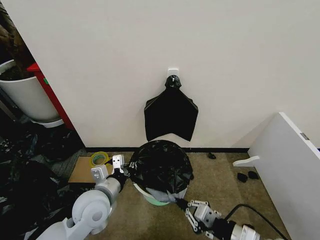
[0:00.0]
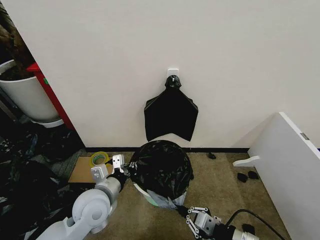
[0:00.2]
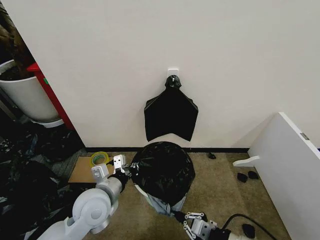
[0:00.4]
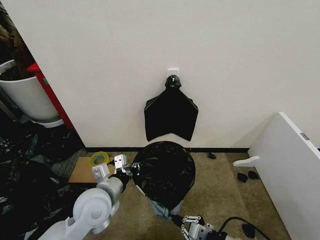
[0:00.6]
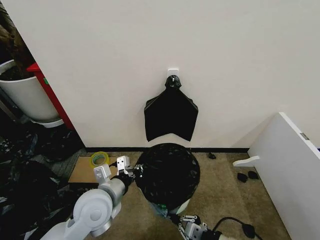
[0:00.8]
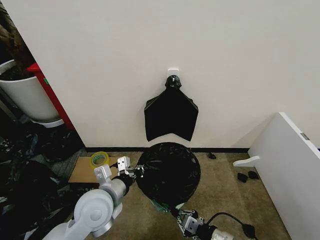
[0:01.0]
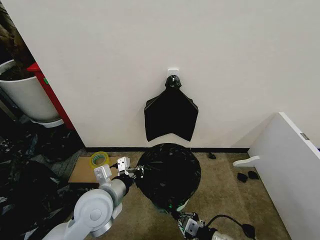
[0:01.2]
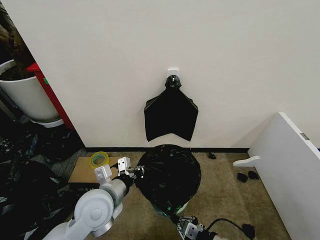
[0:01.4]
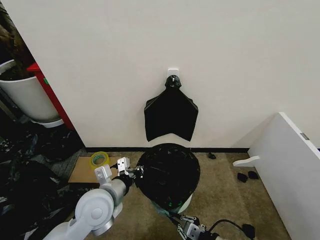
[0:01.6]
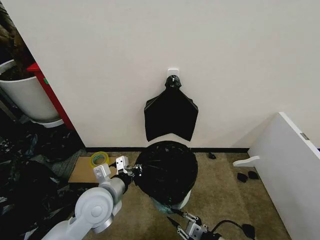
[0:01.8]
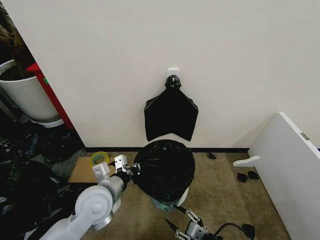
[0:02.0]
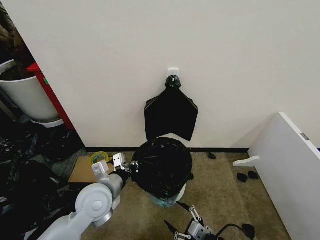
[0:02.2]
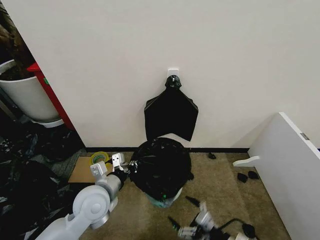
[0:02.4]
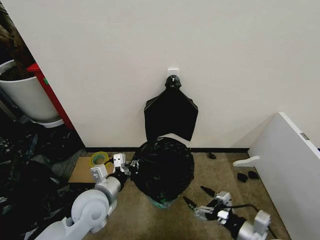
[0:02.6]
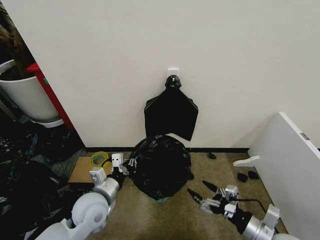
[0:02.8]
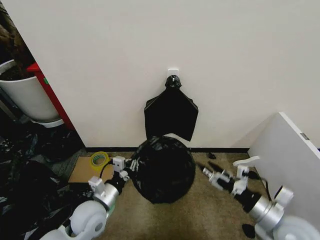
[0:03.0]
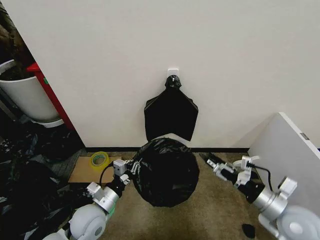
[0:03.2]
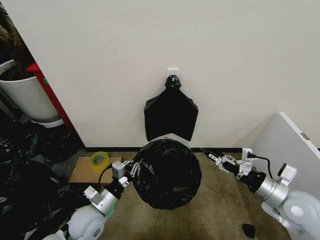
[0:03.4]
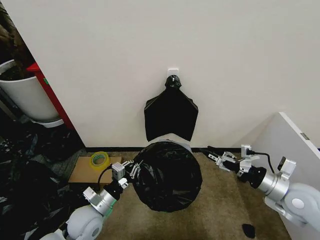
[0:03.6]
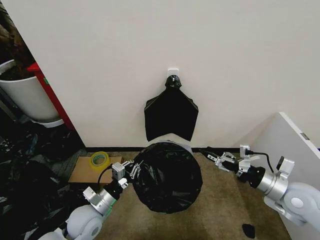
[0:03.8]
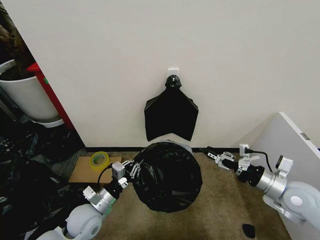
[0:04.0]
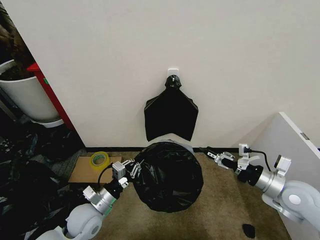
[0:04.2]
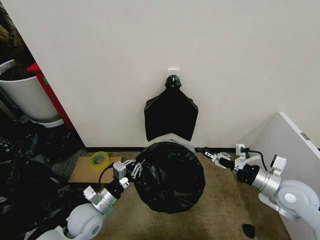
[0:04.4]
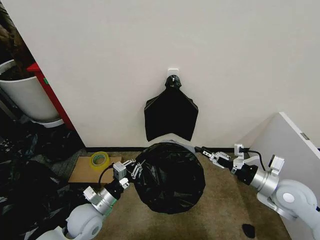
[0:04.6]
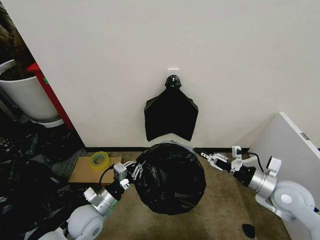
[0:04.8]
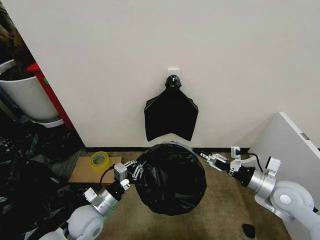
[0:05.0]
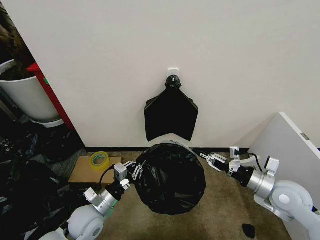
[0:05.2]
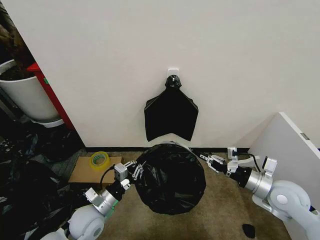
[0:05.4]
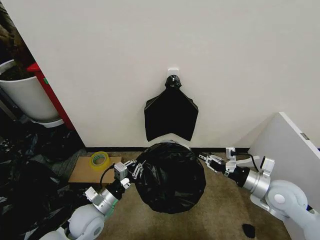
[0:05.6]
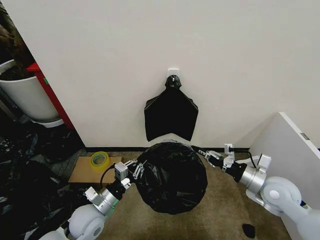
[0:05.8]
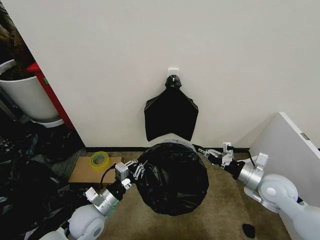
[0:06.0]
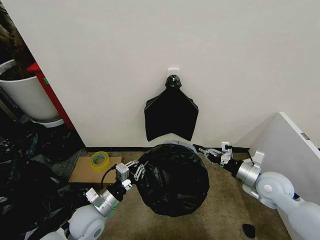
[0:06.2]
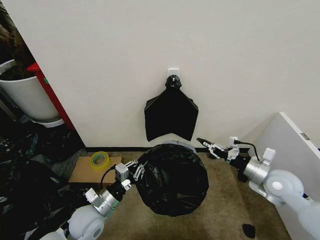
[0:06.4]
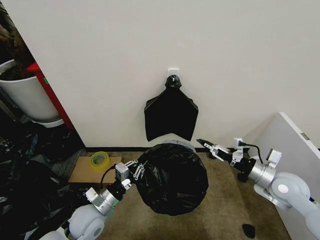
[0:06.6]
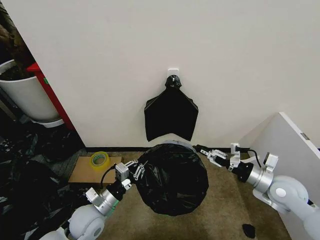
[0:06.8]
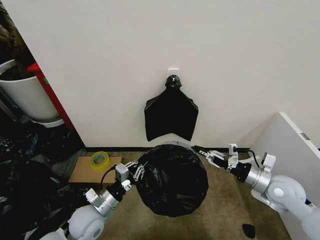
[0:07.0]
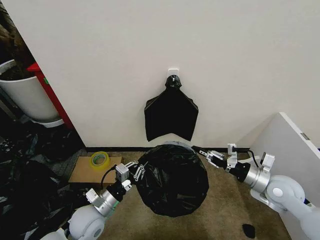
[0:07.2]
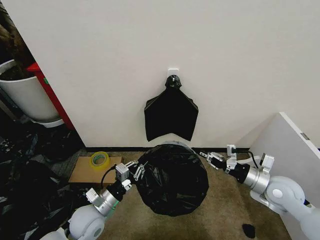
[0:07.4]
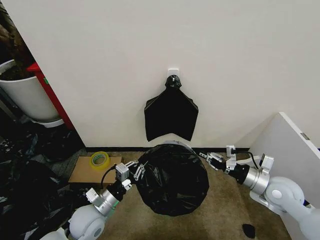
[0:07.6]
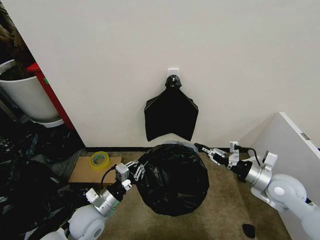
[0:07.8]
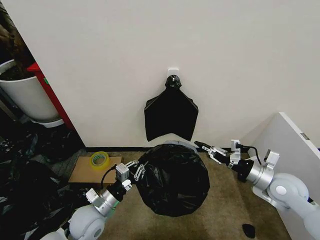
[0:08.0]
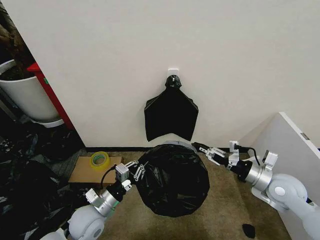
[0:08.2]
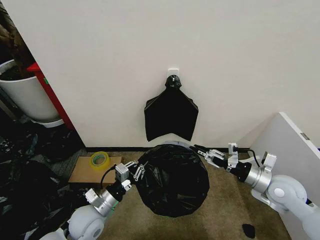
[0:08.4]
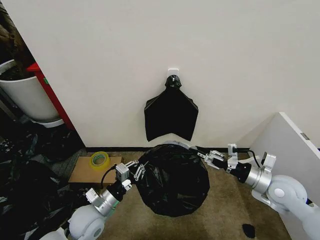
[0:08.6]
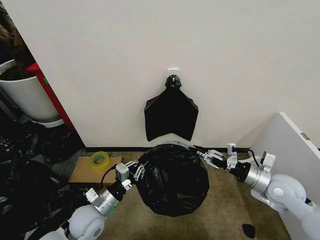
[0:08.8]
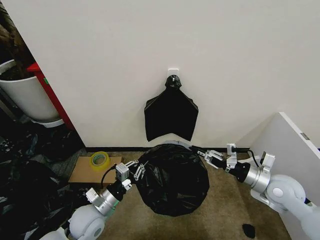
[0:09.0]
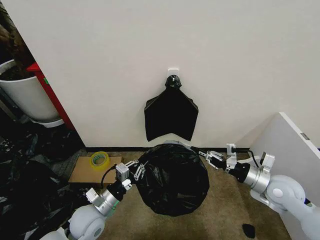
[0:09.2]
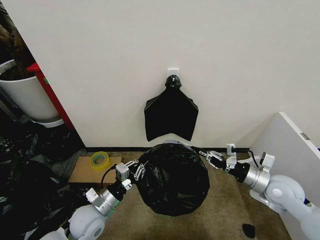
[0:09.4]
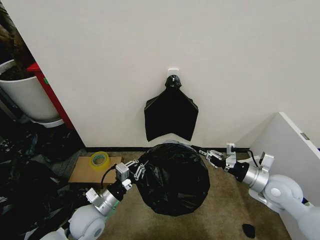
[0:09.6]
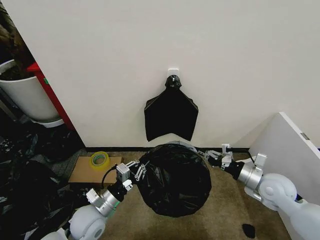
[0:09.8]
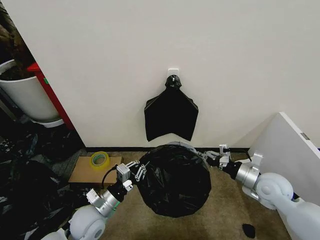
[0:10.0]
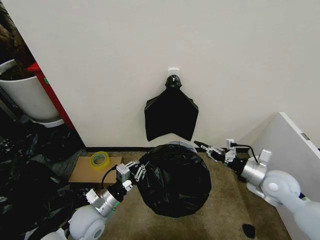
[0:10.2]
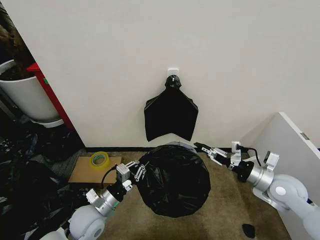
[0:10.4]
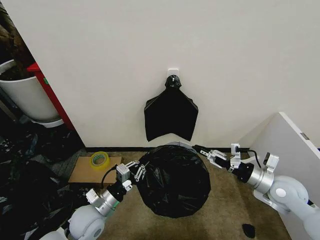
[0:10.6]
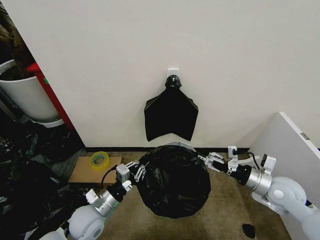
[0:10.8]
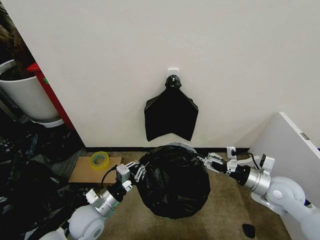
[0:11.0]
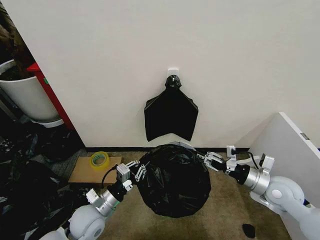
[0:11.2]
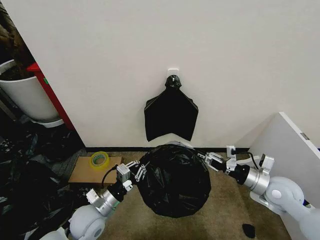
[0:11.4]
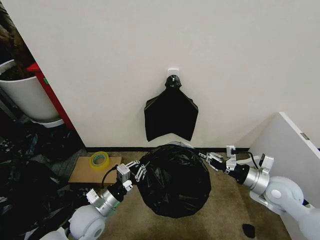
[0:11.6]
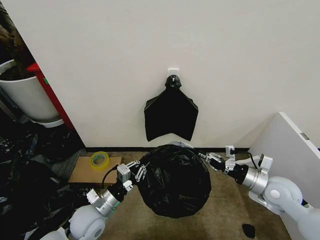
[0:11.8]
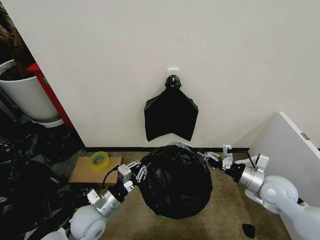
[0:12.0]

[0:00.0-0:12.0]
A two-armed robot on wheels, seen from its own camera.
Task of the whole recording: Place the garbage bag over the trash bin.
0:00.0 to 0:01.6: The right gripper is displaced downward by about 10 cm.
0:01.6 to 0:03.0: The right gripper travels upward and to the right by some 15 cm, and opens; the left gripper goes about 10 cm downward.
0:03.0 to 0:04.4: The right gripper is displaced forward by roughly 10 cm.
0:04.4 to 0:06.0: The right gripper closes up.
0:06.0 to 0:07.6: The right gripper opens, then closes once more.
0:07.6 to 0:09.0: The right gripper opens, then closes again.
0:09.0 to 0:10.4: The grippers move only a little.
0:10.4 to 0:12.0: The right gripper opens, then closes once more.

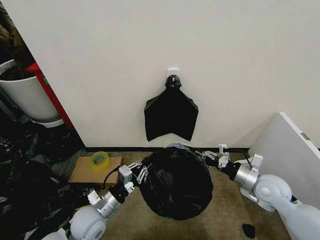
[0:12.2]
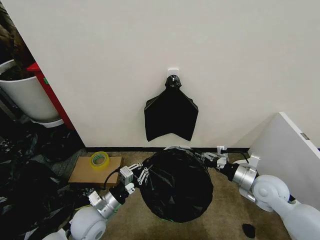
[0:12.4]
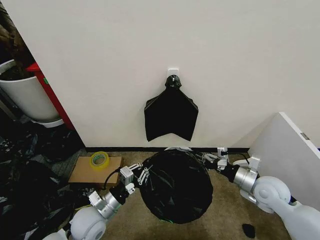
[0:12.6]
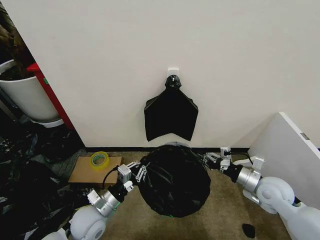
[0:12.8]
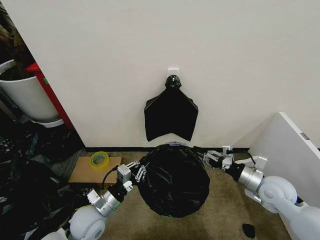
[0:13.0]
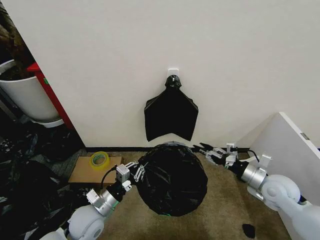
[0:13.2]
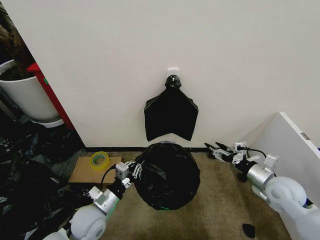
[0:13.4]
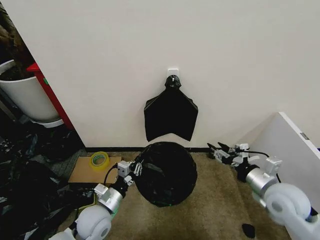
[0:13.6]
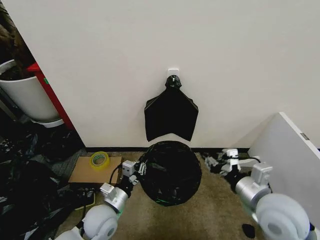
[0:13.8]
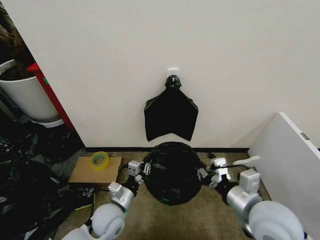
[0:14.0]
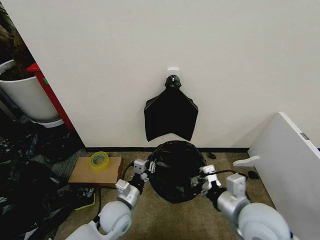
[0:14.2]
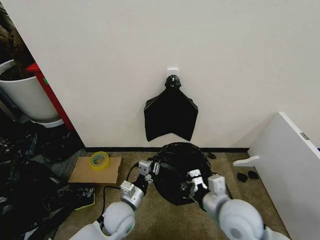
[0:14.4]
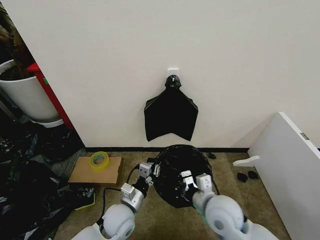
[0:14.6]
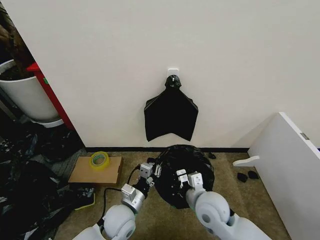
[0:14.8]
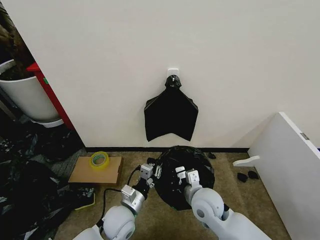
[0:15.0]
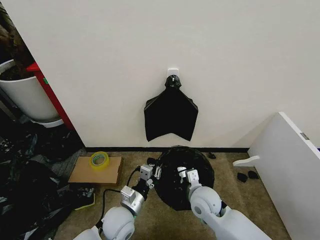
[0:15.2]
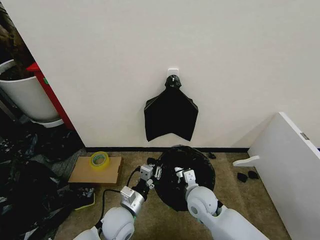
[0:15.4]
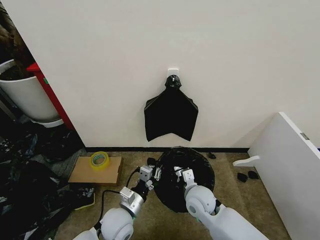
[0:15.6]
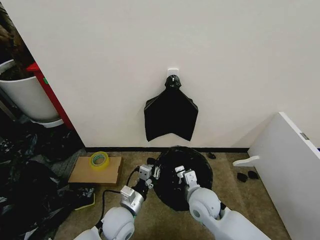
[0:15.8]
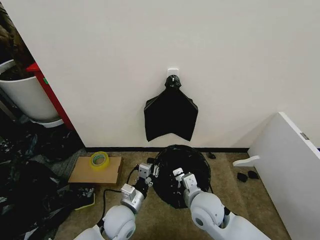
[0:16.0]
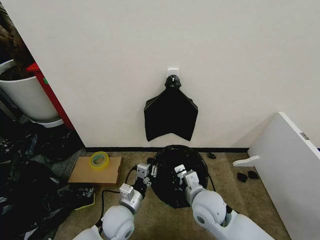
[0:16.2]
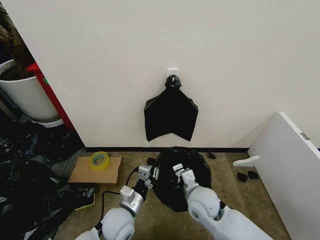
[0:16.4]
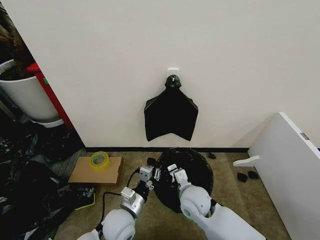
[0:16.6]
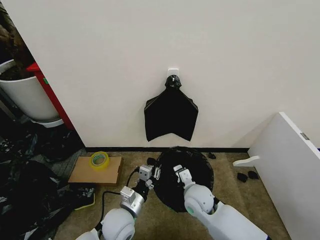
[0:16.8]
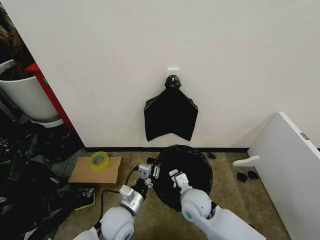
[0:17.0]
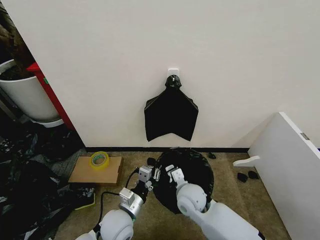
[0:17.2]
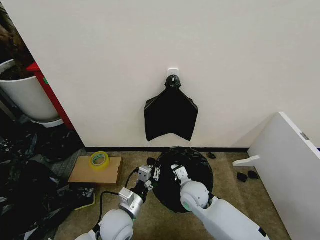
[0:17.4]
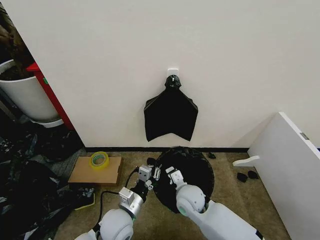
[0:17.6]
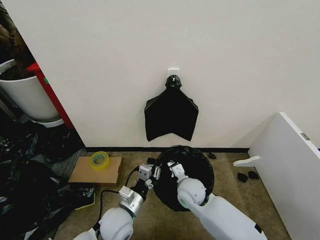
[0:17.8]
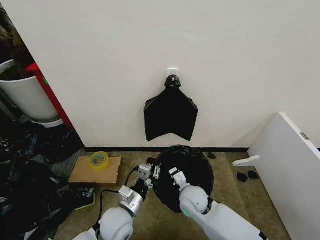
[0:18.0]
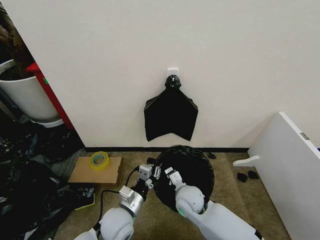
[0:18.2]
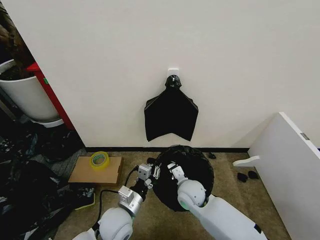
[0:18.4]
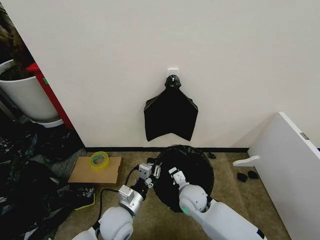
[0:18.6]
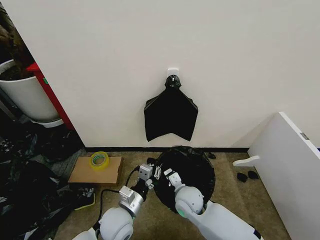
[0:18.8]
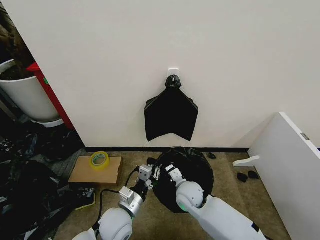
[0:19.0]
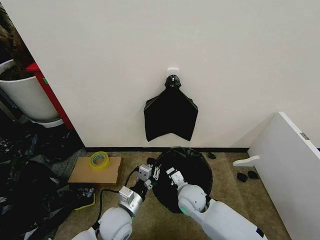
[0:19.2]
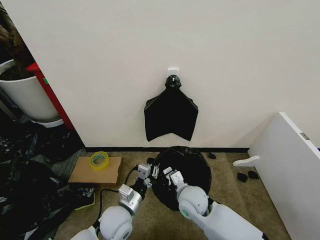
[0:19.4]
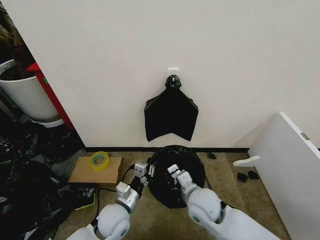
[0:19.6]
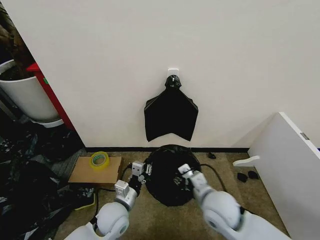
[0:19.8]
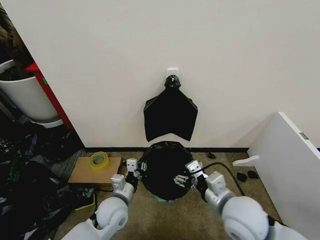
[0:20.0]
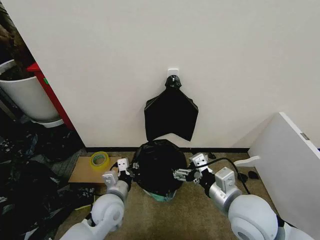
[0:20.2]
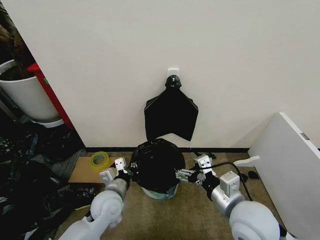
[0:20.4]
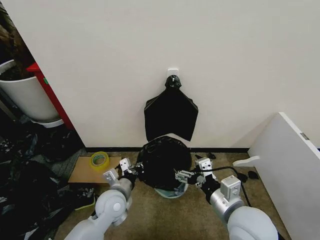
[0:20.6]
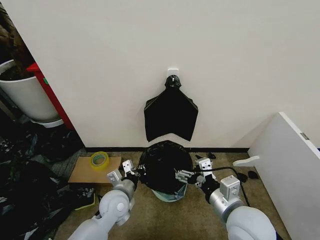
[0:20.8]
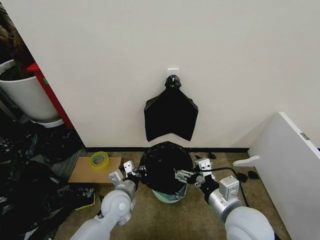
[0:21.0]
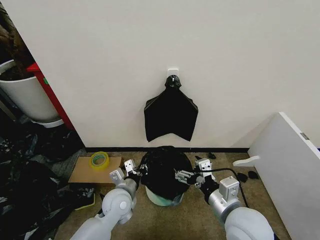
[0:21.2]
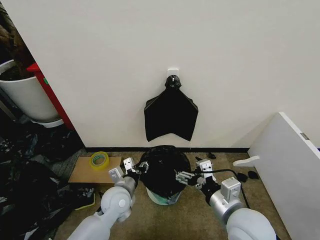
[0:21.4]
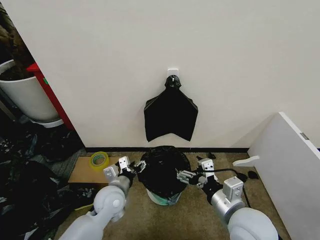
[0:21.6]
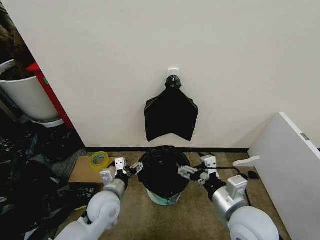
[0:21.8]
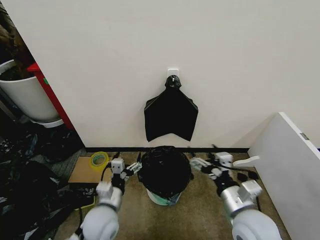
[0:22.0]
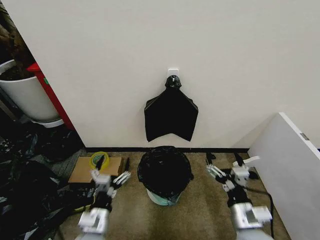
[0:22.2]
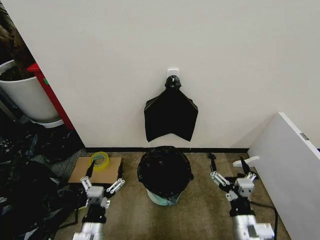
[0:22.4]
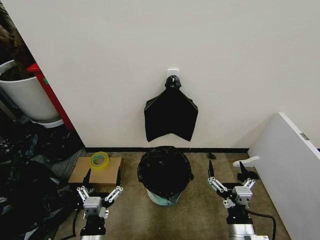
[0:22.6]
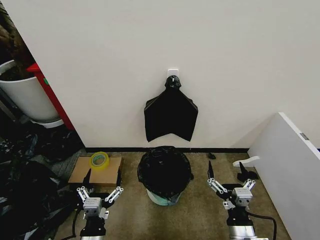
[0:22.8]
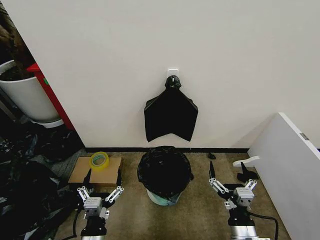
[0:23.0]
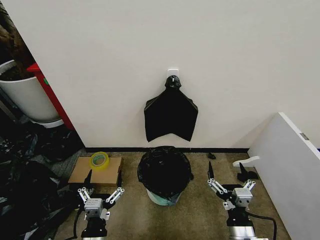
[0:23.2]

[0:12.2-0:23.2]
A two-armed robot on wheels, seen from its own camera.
Task of the whole recording: Place the garbage bag over the trash bin.
0:12.2 to 0:13.8: The right gripper moves backward, upward and to the left, roughly 15 cm, and opens up.
0:13.8 to 0:15.4: The right gripper travels to the left, downward and forward by some 20 cm, and closes. The left gripper heads to the right, covering approximately 5 cm.
0:15.4 to 0:18.4: The grippers make only small movements.
0:18.4 to 0:20.0: The right gripper is displaced upward, backward and to the right by some 20 cm, and opens up.
0:20.0 to 0:21.6: The left gripper opens.
0:21.6 to 0:23.2: The right gripper moves downward and backward, approximately 15 cm; the left gripper goes about 20 cm backward.
